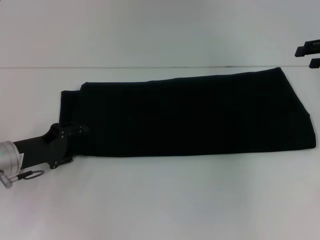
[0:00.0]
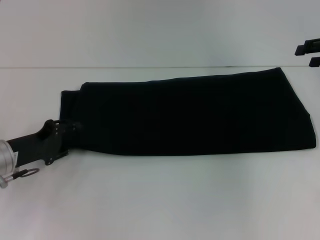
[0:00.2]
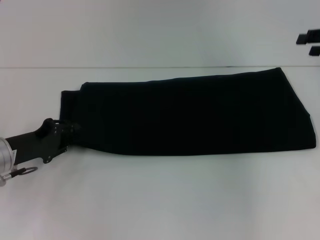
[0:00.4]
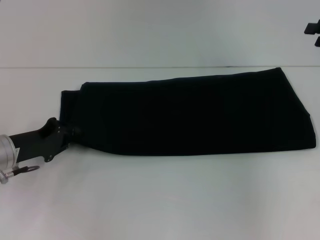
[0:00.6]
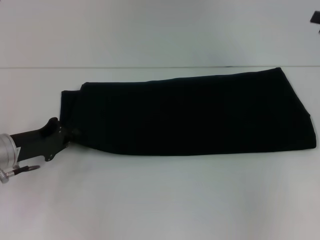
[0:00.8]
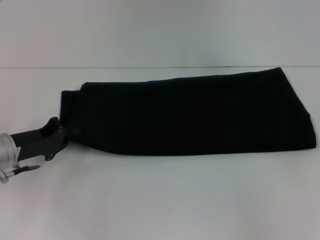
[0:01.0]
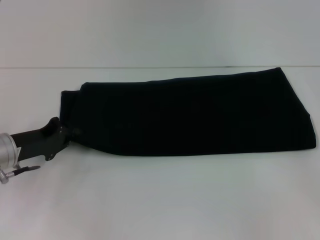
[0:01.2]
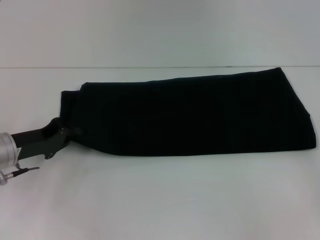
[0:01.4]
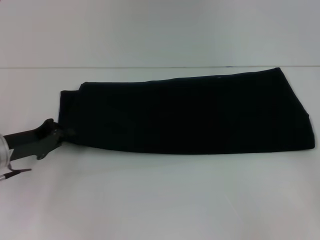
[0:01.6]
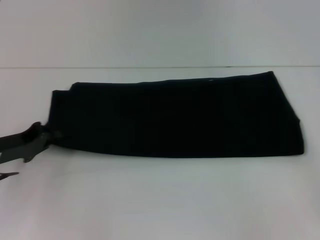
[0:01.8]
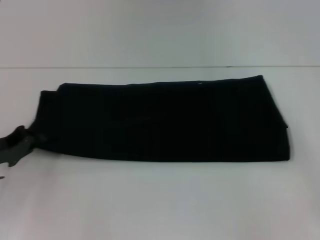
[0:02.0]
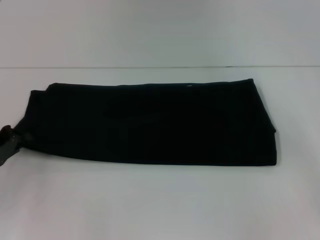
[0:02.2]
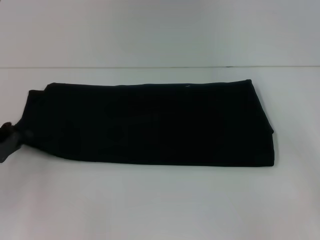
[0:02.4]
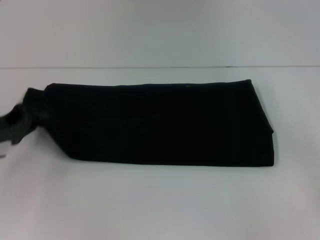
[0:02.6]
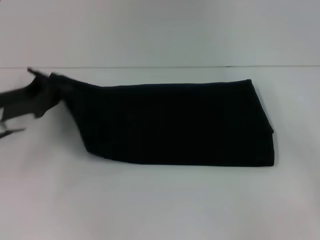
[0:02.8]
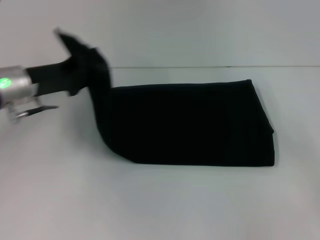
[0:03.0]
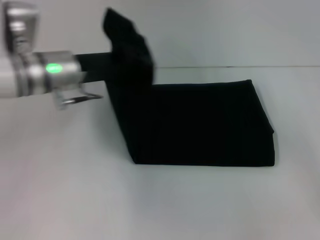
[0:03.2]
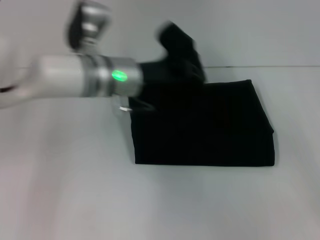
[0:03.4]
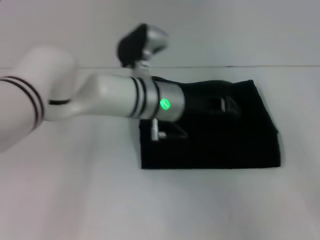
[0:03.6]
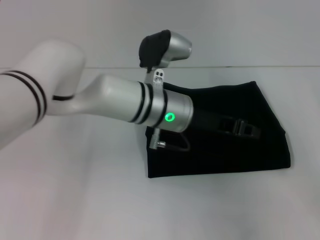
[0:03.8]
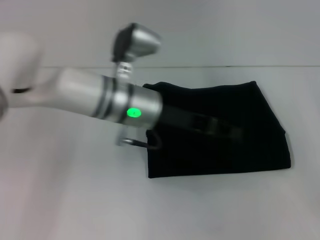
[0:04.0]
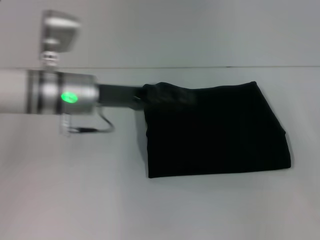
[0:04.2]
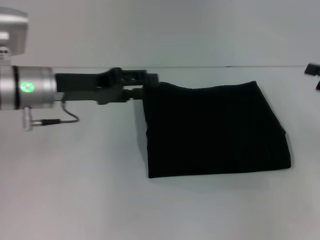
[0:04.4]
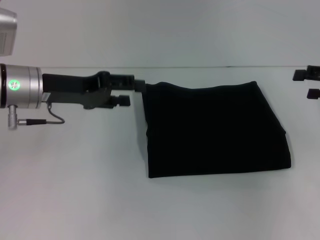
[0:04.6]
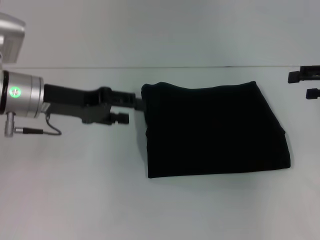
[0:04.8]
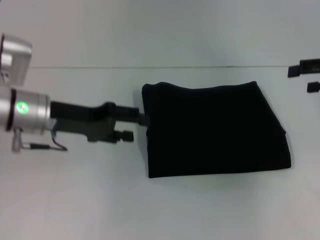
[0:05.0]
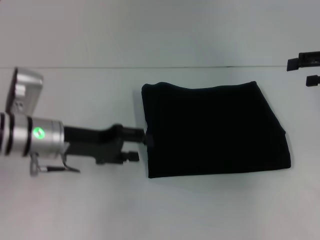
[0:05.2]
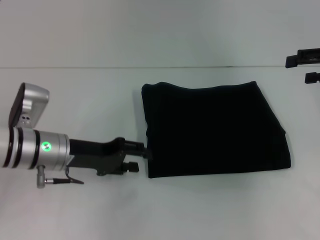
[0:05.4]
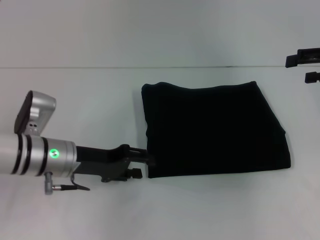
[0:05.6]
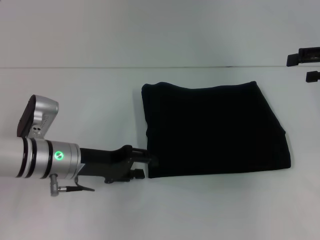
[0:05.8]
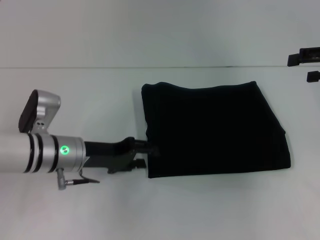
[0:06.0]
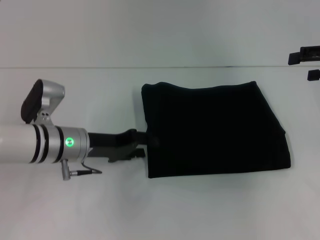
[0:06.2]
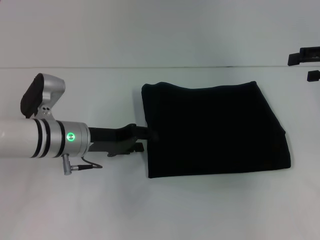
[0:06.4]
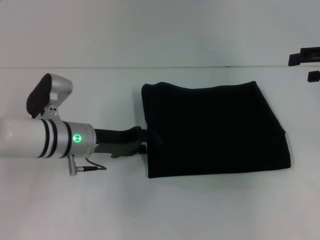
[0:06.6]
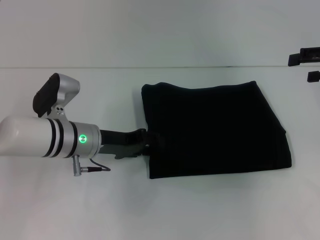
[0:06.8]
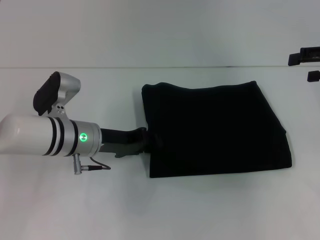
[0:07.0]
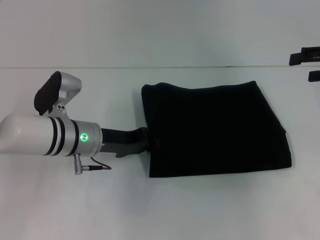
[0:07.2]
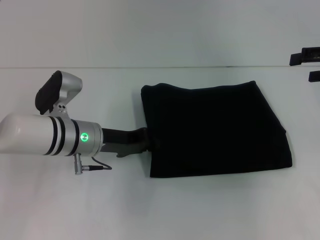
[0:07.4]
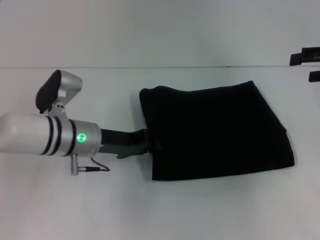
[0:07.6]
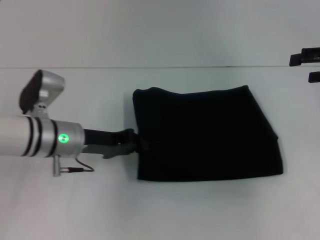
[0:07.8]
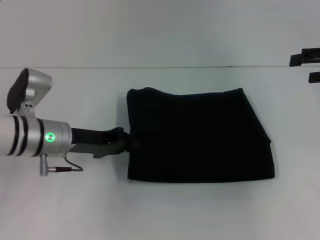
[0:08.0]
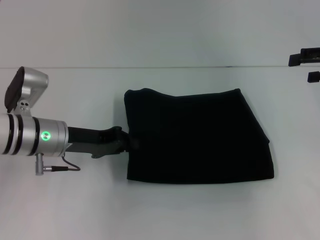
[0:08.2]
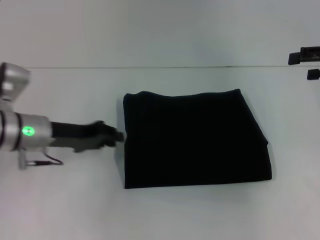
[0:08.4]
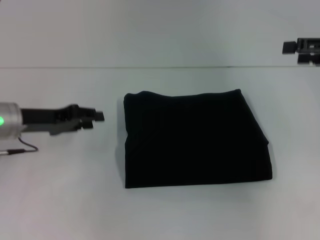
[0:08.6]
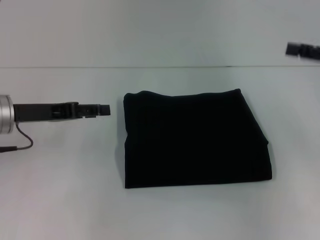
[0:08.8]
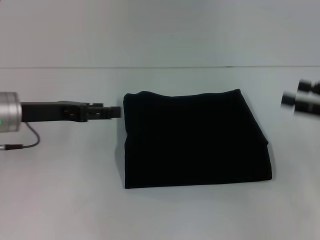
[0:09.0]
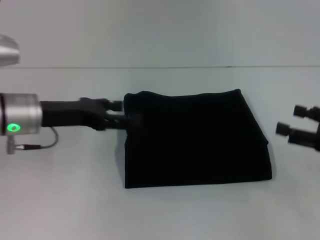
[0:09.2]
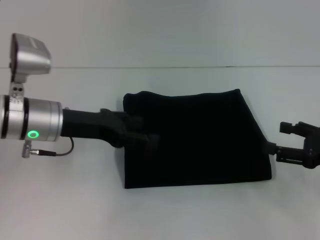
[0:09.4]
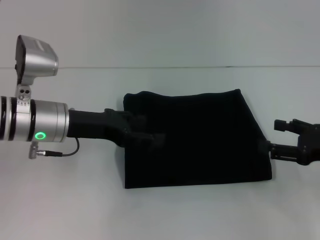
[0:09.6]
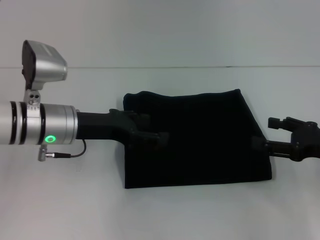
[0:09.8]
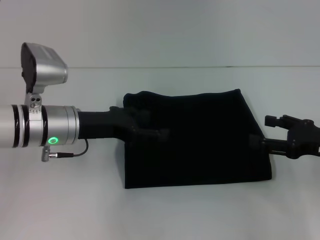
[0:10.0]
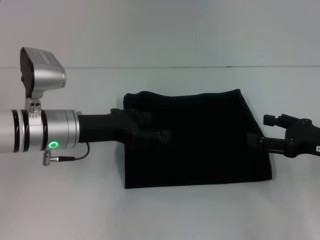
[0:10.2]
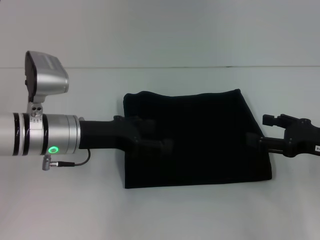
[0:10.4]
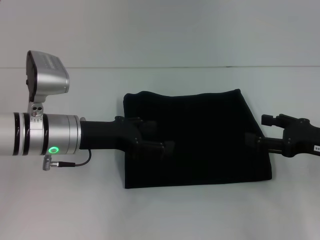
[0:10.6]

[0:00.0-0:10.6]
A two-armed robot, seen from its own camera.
Step, 0:00.0 to 0:03.6: Fold the clothes with your left hand.
0:00.0 to 0:01.6: The left gripper closes up. Meanwhile the right gripper moves backward and downward, about 15 cm, and opens its fingers.
0:01.6 to 0:03.0: The left gripper goes about 10 cm upward and forward.
0:03.0 to 0:04.6: The right gripper heads forward, covering about 10 cm, while the left gripper goes to the right and returns, roughly 25 cm each way, and opens its fingers.
0:04.6 to 0:06.0: The left gripper goes some 10 cm downward. The right gripper travels upward by some 5 cm.
0:06.0 to 0:07.6: The left gripper closes up.
0:07.6 to 0:09.0: The left gripper heads to the left and upward, covering some 10 cm, and opens. The right gripper is displaced backward and downward by about 10 cm.
0:09.0 to 0:10.6: The left gripper moves to the right, approximately 10 cm. The right gripper shifts by about 5 cm.
